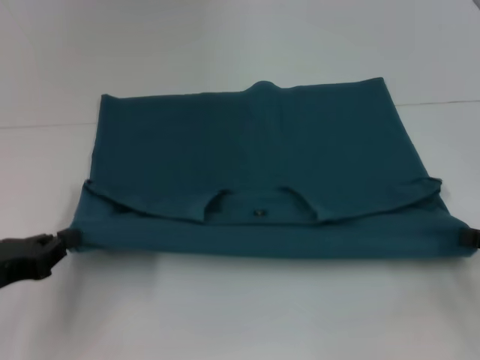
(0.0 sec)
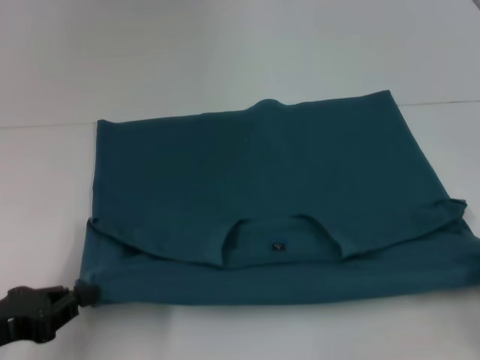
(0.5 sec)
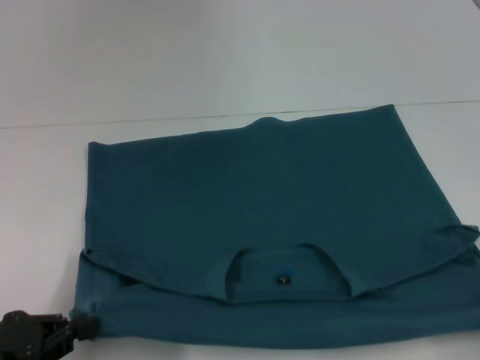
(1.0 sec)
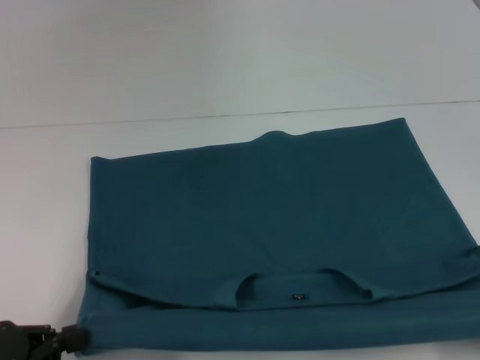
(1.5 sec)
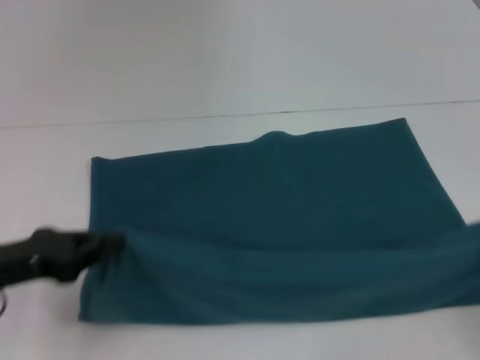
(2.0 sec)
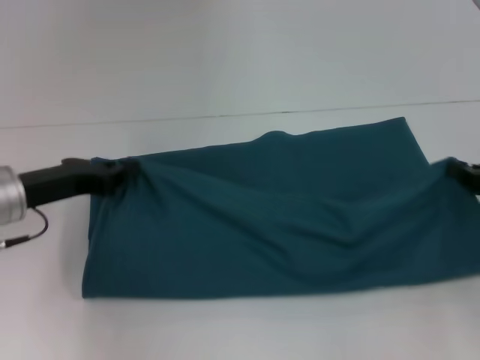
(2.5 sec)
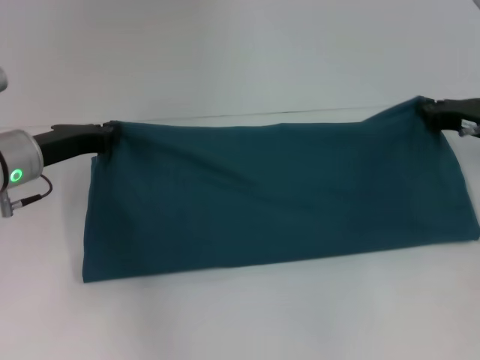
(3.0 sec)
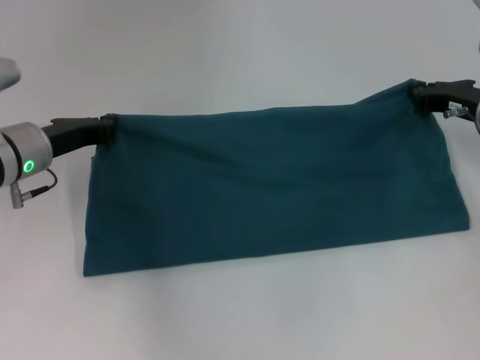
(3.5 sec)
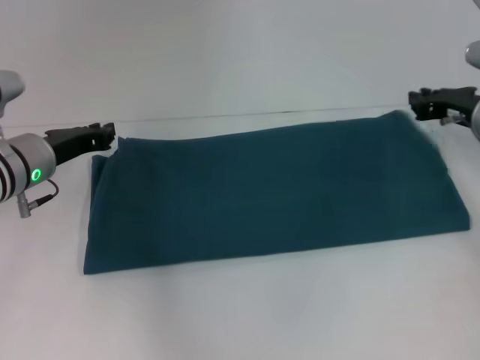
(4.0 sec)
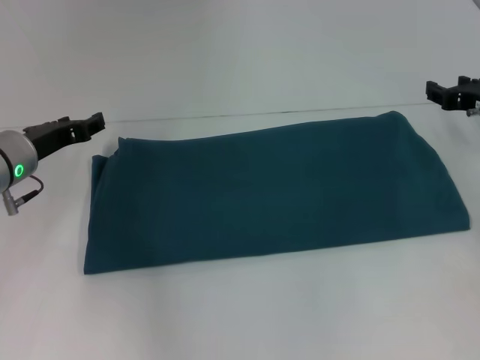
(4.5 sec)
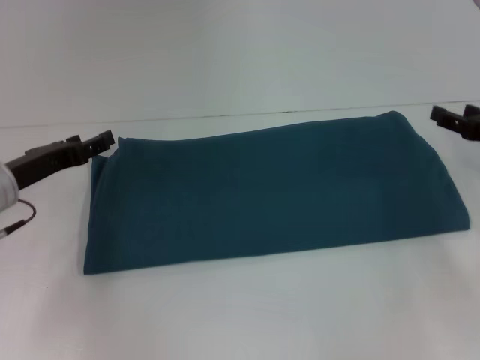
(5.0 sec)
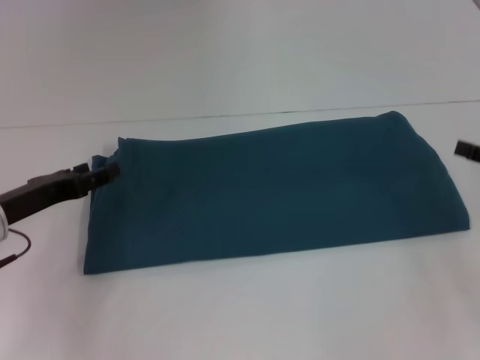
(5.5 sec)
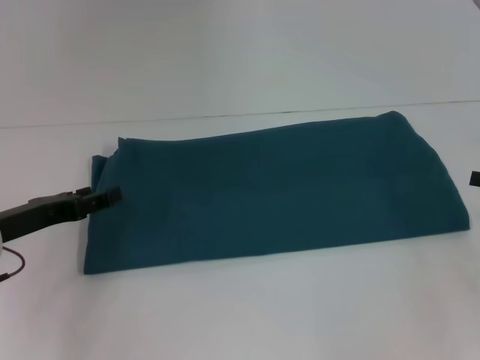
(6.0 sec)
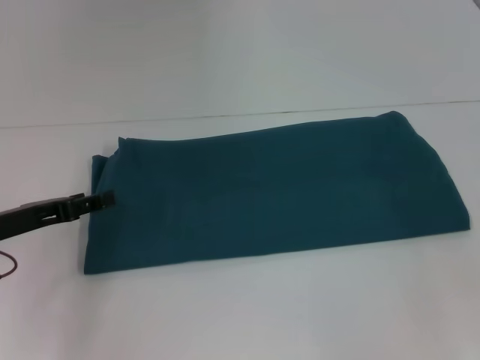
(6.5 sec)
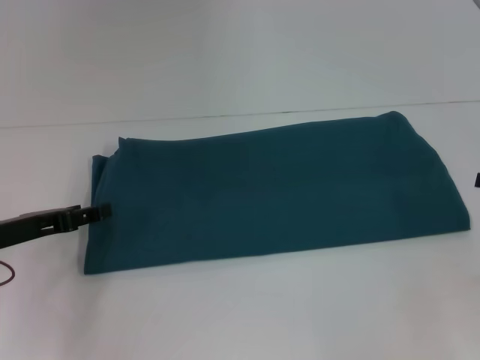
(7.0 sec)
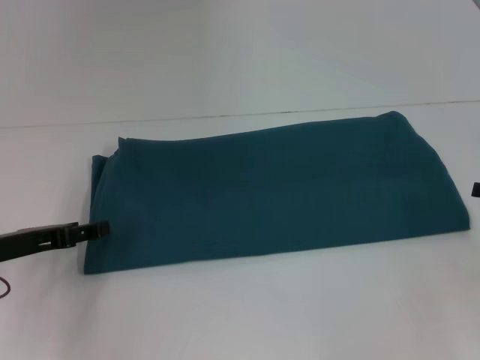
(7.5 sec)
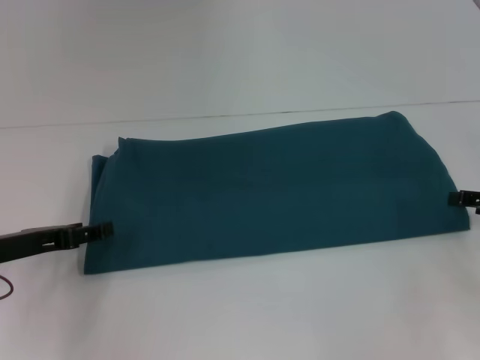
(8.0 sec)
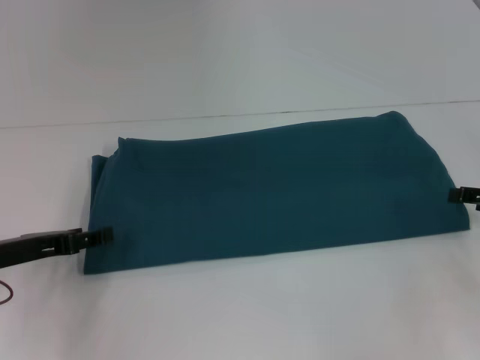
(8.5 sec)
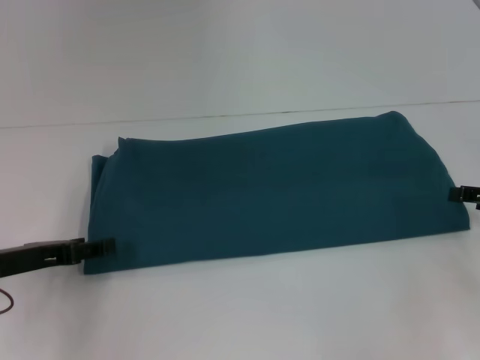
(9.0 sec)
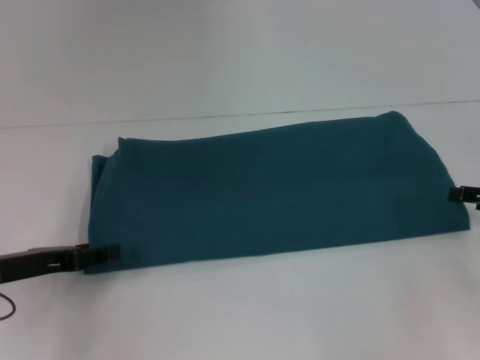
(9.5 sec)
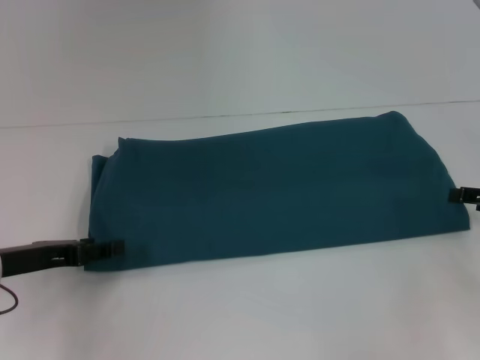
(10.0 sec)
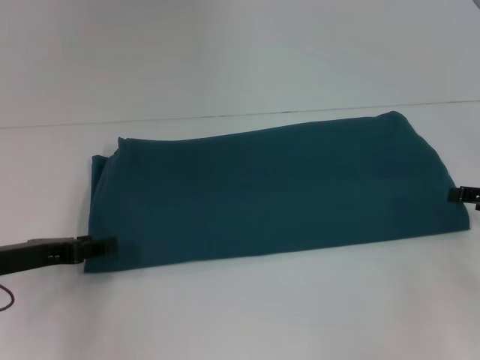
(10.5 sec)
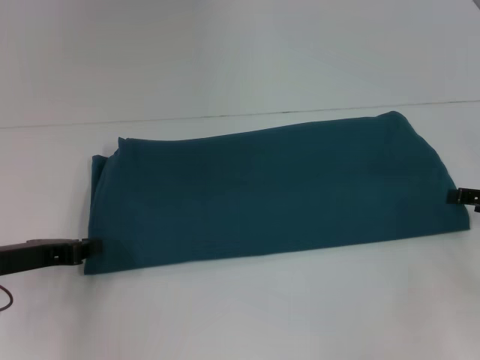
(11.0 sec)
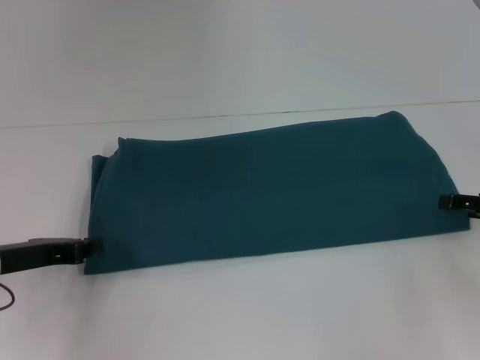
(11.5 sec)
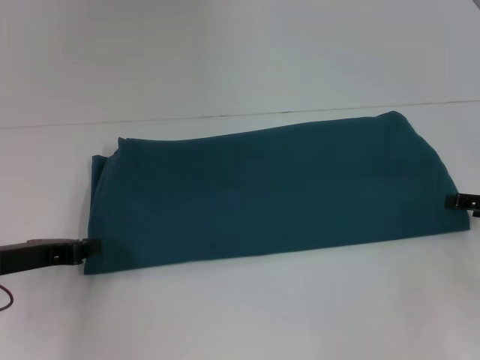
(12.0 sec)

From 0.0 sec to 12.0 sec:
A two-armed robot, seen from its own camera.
Step, from 1.5 sec to 4.5 sec: Fold the clothes to the right.
From 0.0 sec to 2.0 sec: The left gripper moves some 5 cm backward and comes back.
From 2.0 sec to 4.0 sec: The left gripper travels forward and to the right by about 15 cm, while the right gripper is displaced forward and to the left by about 25 cm.
From 4.0 sec to 6.0 sec: The left gripper is displaced backward and to the left by about 10 cm, and opens up, while the right gripper is displaced backward and to the right by about 15 cm, and opens up.
From 6.0 sec to 10.0 sec: The grippers stay close to where they were, moving slightly.
From 10.0 sec to 12.0 sec: The left gripper closes its fingers.

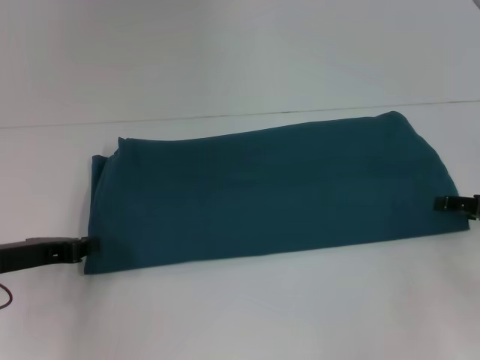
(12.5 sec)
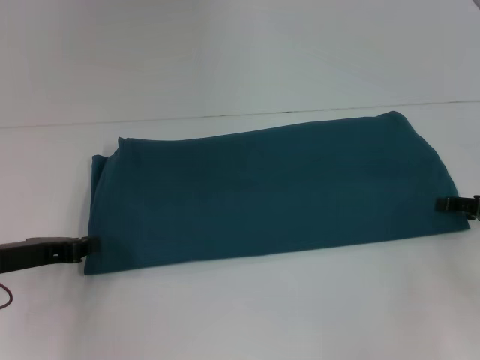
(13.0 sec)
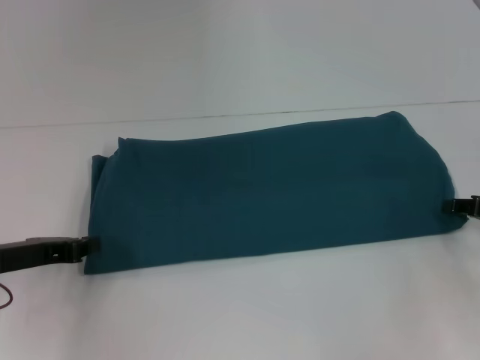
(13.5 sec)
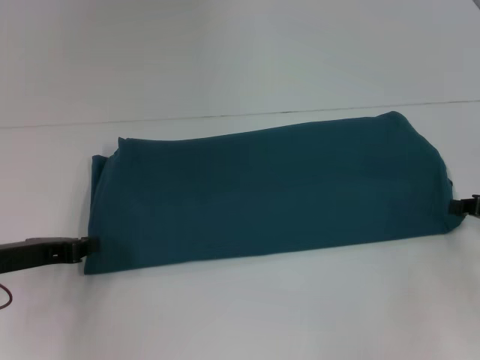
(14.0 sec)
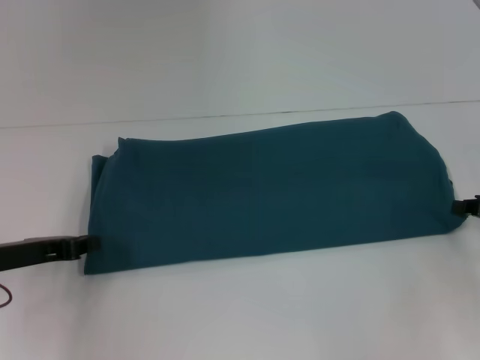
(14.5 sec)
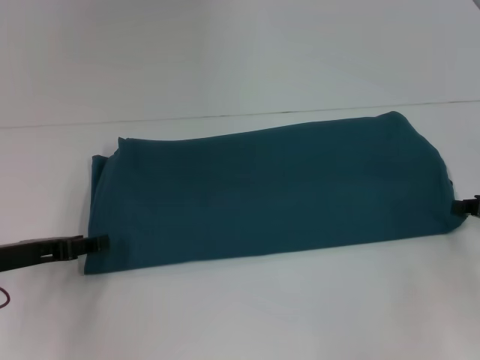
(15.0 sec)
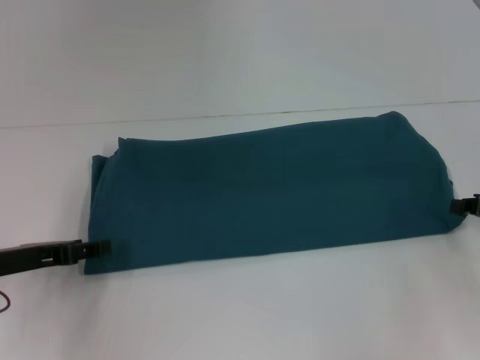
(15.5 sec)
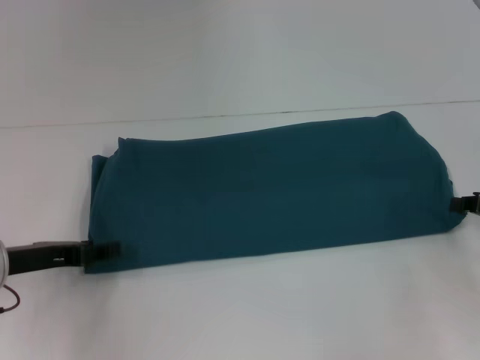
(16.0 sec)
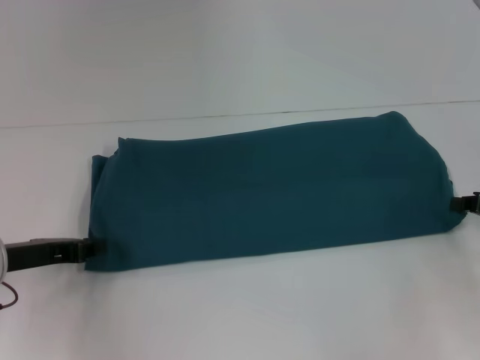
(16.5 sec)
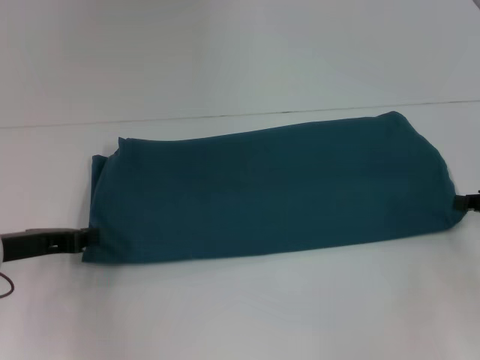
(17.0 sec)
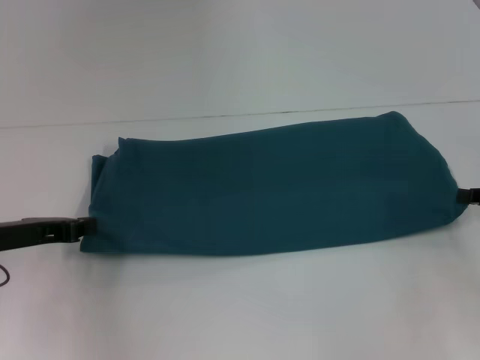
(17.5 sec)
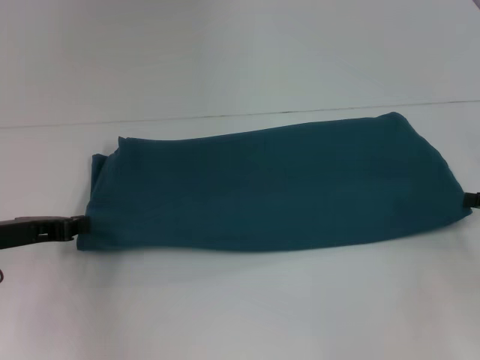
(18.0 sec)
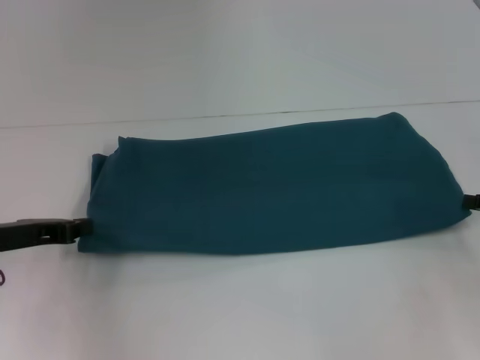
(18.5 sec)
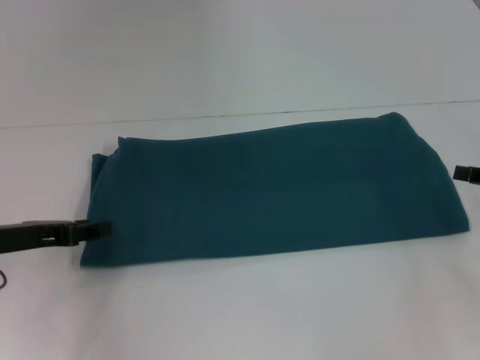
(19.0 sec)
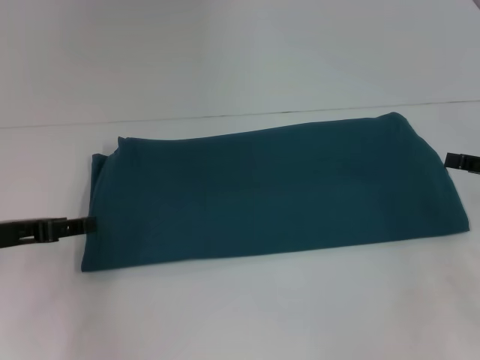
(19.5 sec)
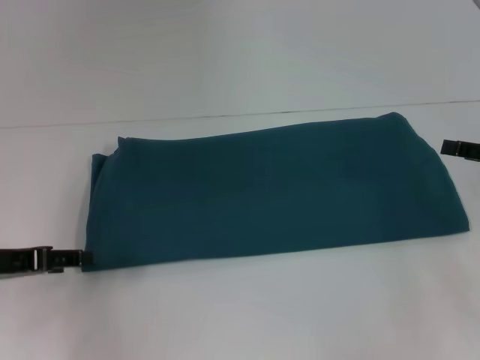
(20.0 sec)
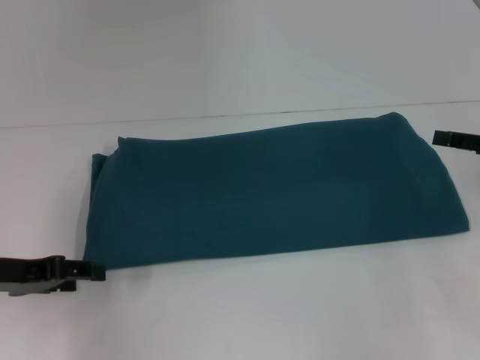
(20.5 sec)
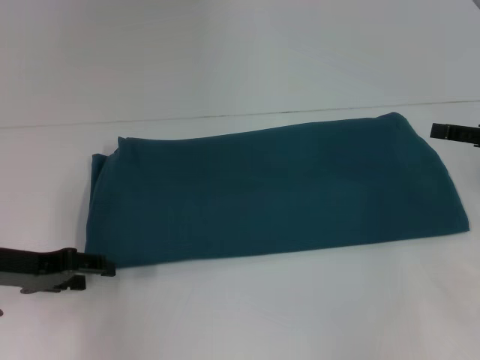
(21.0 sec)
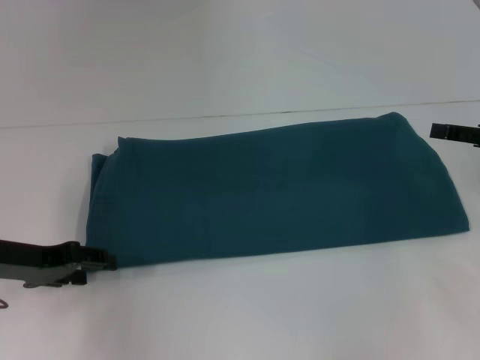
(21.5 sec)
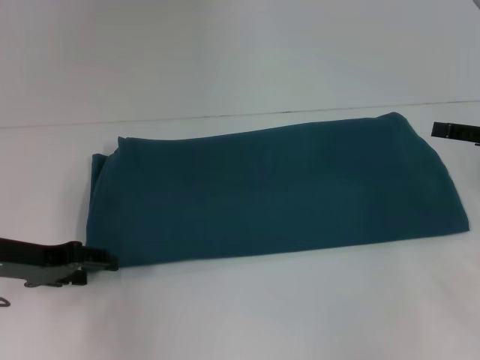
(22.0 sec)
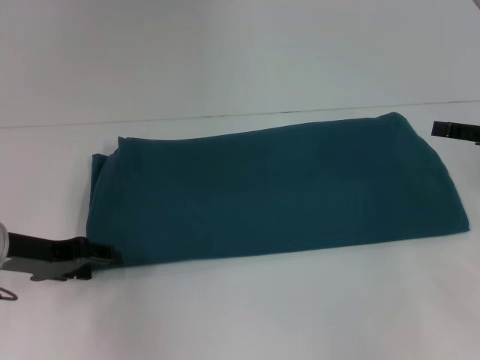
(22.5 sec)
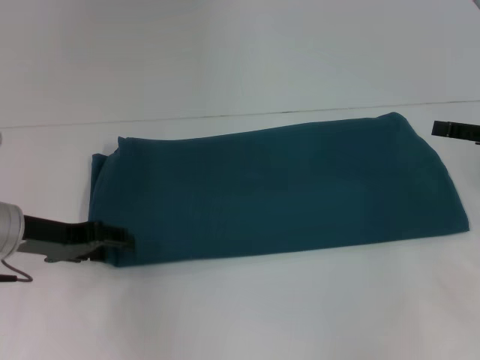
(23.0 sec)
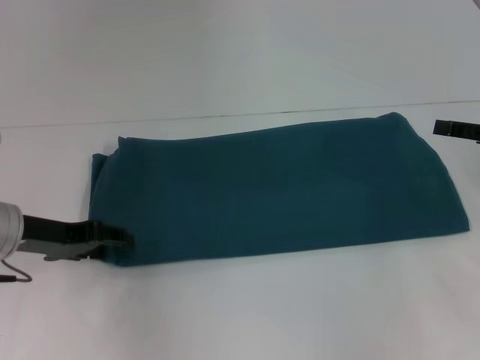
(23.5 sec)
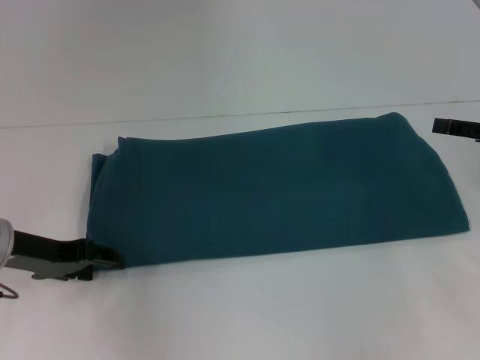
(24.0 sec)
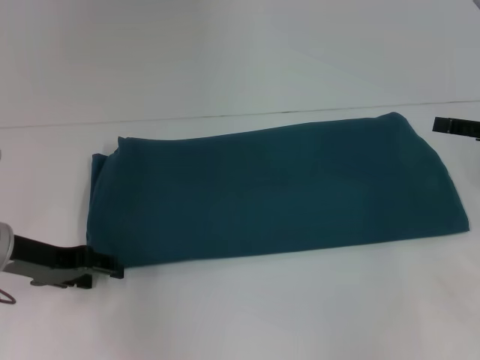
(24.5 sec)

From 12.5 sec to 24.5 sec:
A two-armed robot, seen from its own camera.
From 14.5 sec to 16.5 sec: The left gripper opens, then closes once more.
From 16.5 sec to 18.5 sec: There are only small adjustments of the grippers.
From 18.5 sec to 20.5 sec: The right gripper moves approximately 5 cm, and opens up, while the left gripper opens its fingers.
From 20.5 sec to 22.5 sec: There are only small adjustments of the grippers.
From 22.5 sec to 24.5 sec: There are only small adjustments of the grippers.

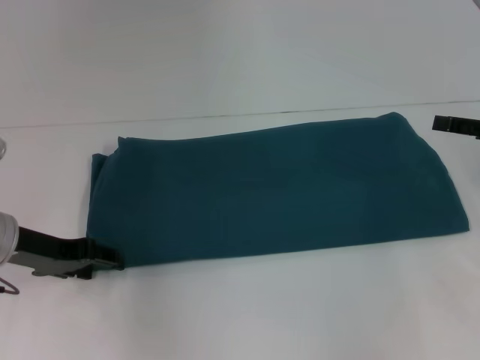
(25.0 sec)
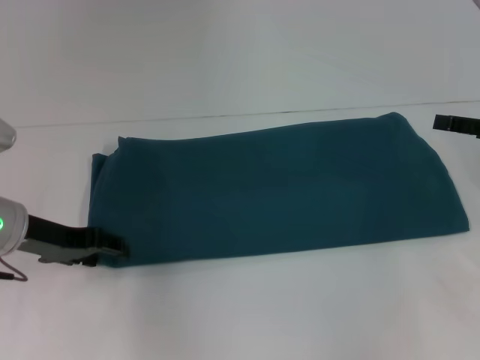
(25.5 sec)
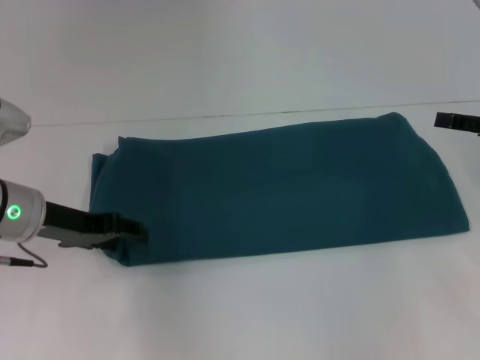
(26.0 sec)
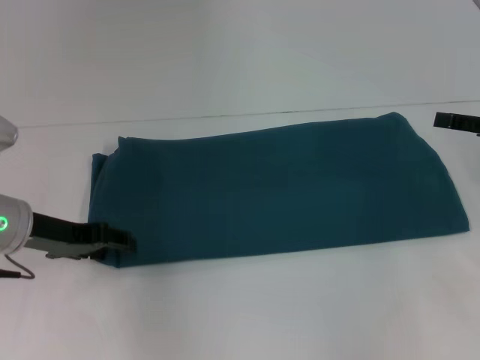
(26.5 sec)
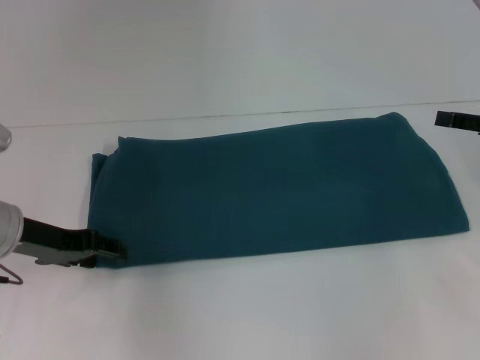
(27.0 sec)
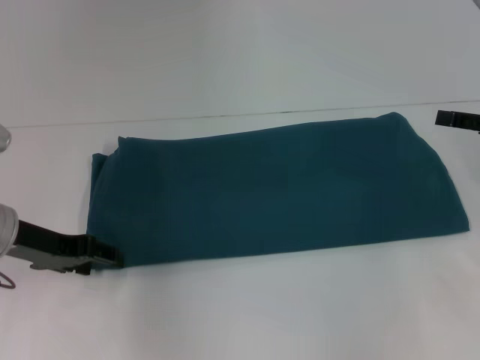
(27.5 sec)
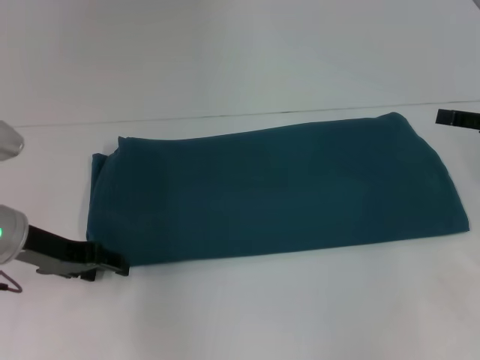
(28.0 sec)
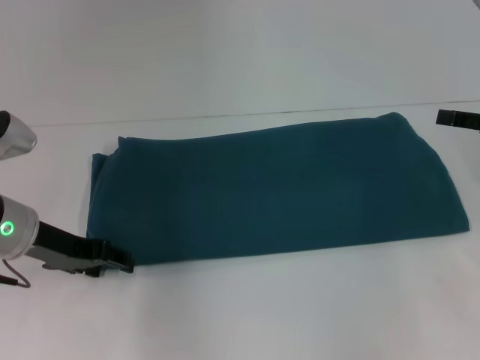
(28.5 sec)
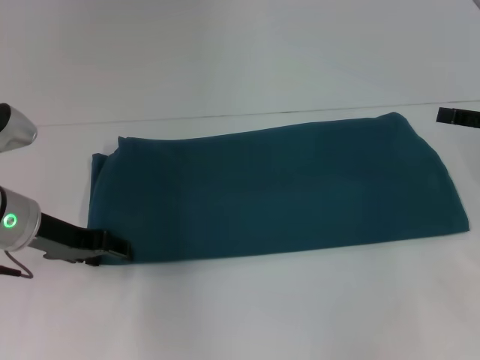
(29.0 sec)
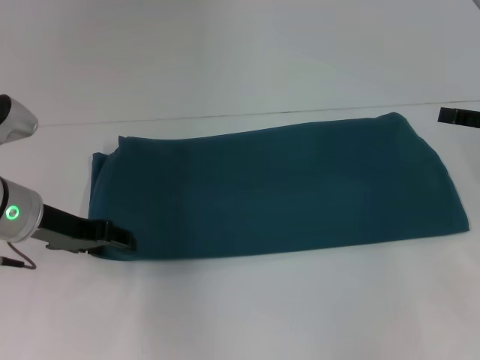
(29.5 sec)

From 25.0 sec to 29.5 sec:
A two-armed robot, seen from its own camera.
From 25.0 sec to 29.5 sec: There are only small adjustments of the grippers.
